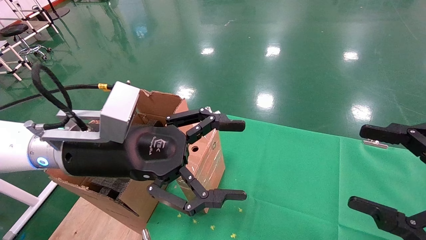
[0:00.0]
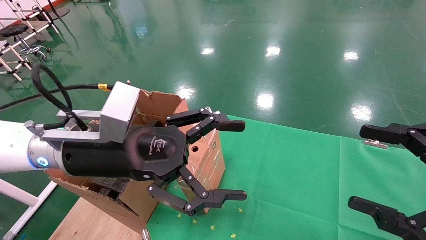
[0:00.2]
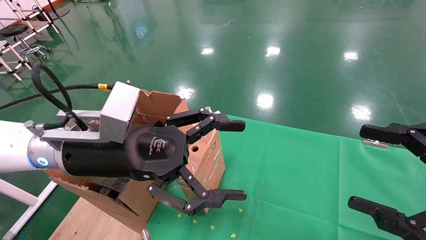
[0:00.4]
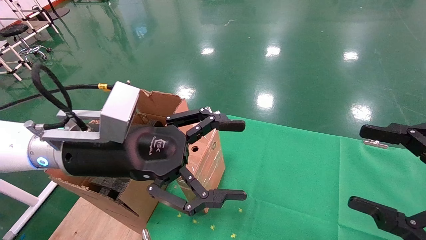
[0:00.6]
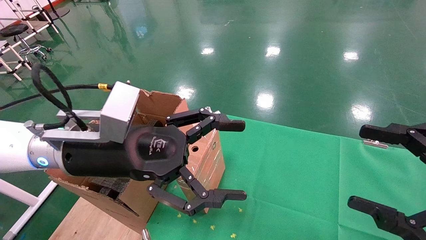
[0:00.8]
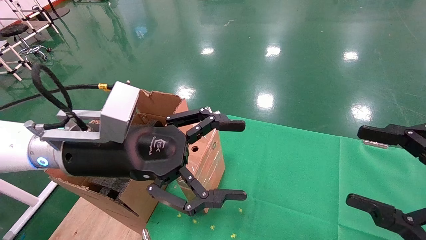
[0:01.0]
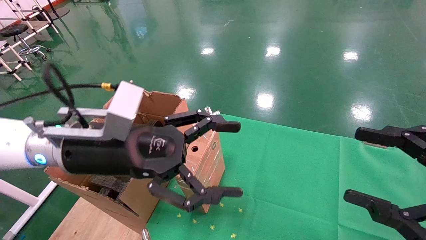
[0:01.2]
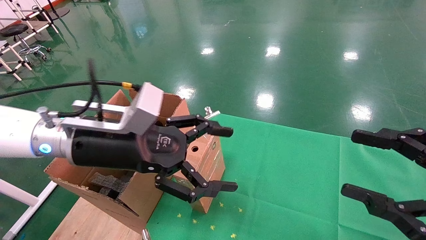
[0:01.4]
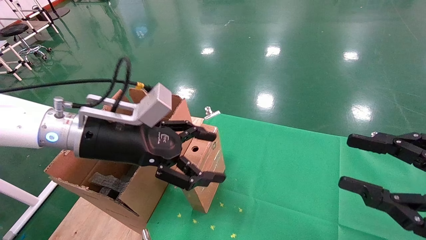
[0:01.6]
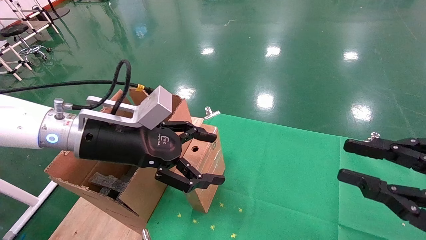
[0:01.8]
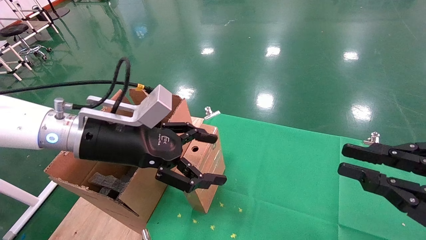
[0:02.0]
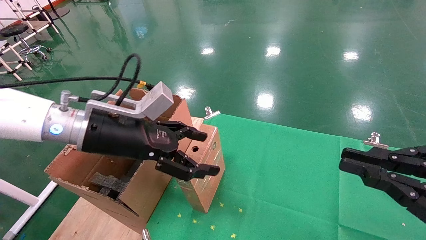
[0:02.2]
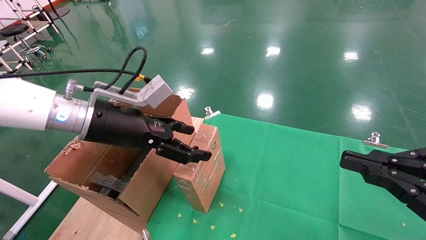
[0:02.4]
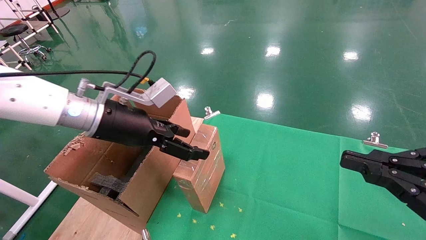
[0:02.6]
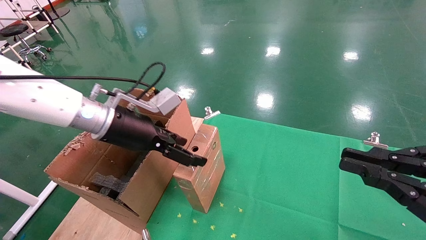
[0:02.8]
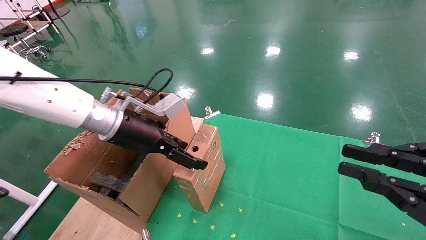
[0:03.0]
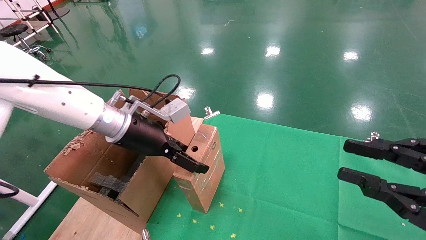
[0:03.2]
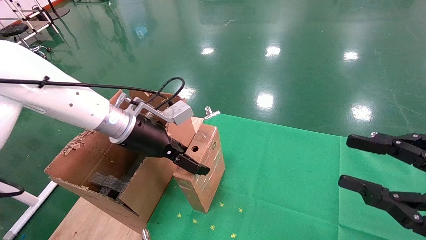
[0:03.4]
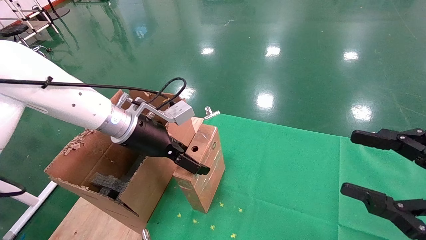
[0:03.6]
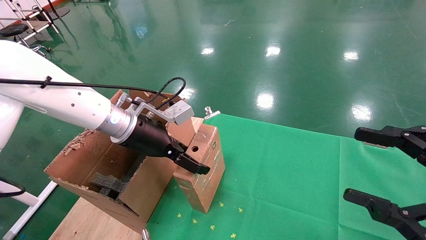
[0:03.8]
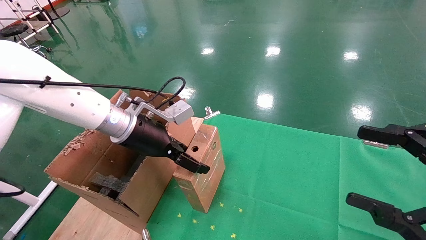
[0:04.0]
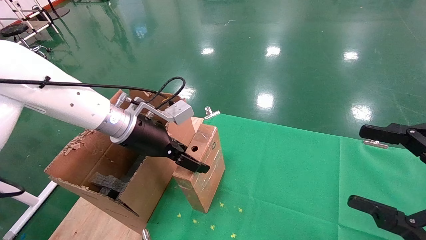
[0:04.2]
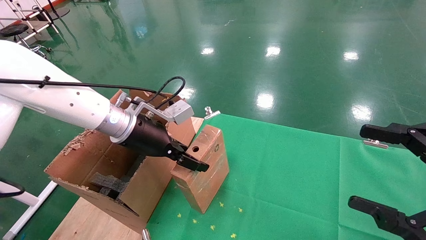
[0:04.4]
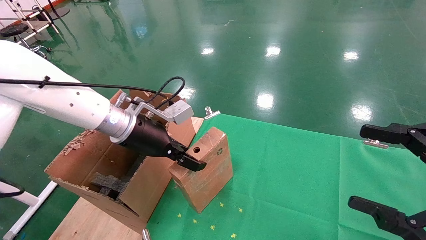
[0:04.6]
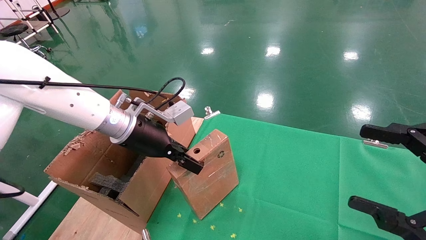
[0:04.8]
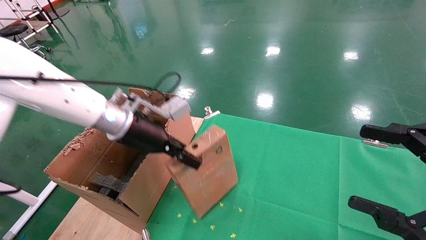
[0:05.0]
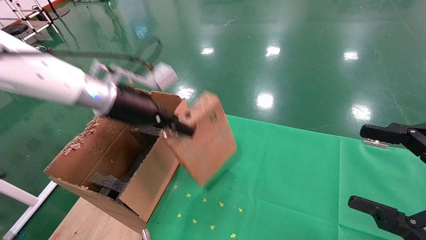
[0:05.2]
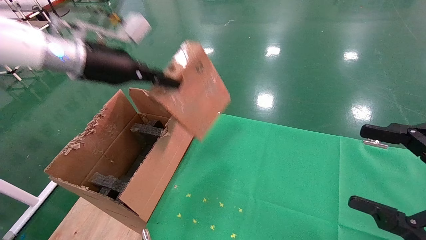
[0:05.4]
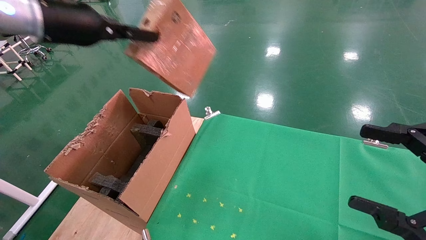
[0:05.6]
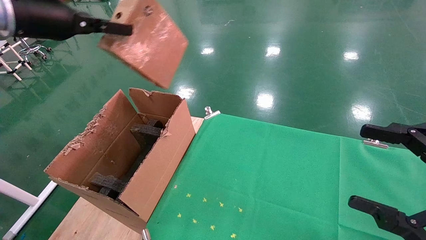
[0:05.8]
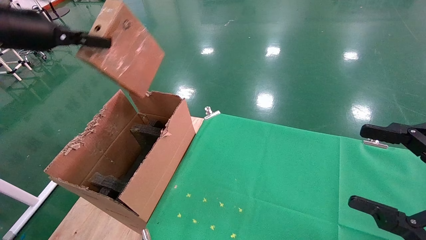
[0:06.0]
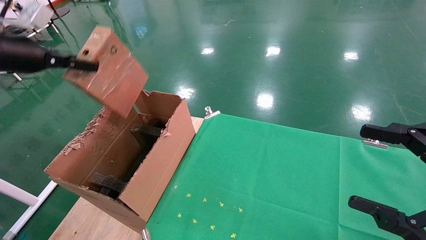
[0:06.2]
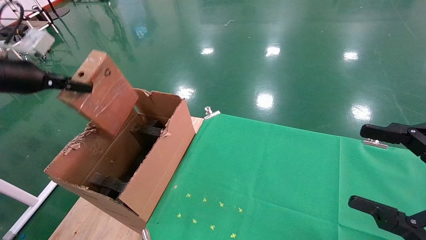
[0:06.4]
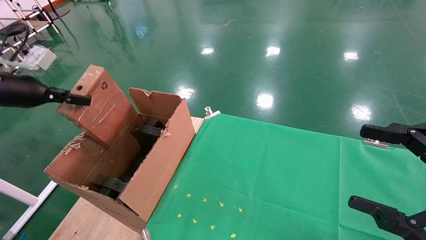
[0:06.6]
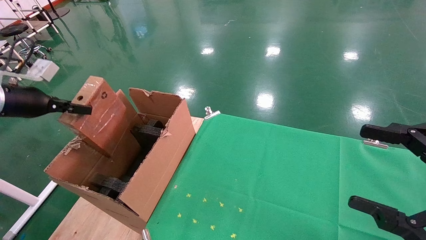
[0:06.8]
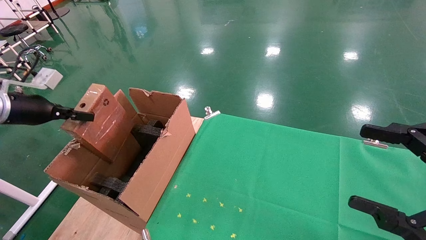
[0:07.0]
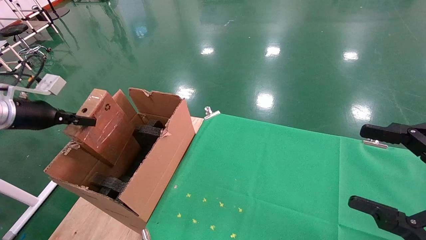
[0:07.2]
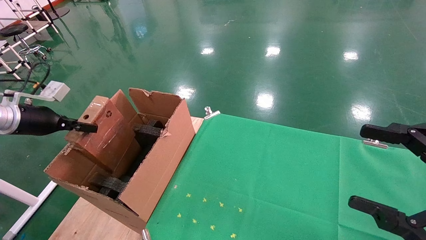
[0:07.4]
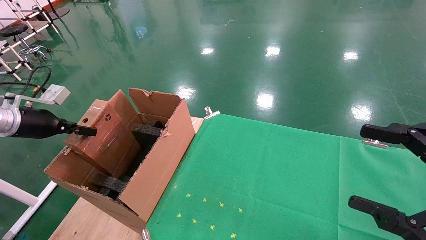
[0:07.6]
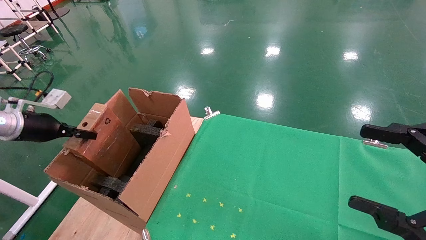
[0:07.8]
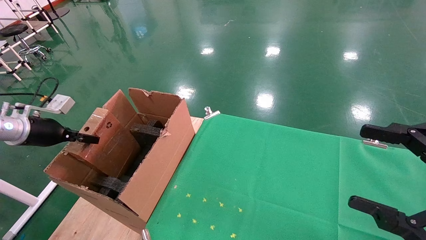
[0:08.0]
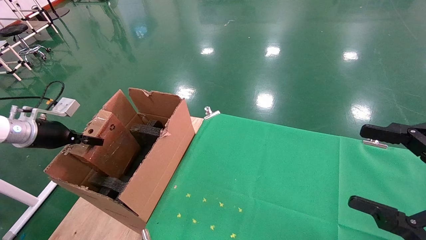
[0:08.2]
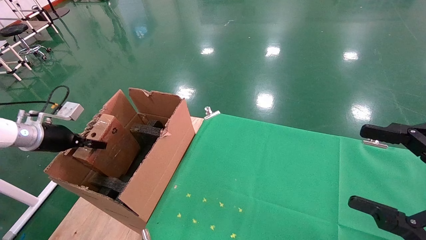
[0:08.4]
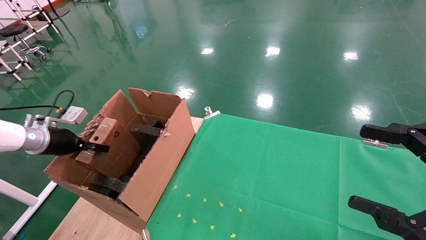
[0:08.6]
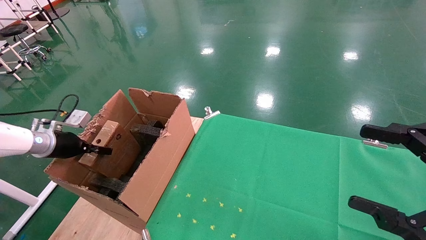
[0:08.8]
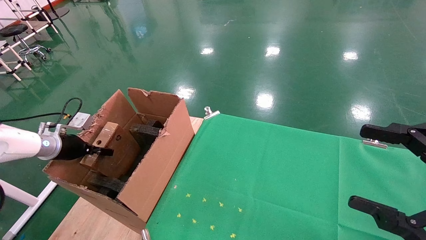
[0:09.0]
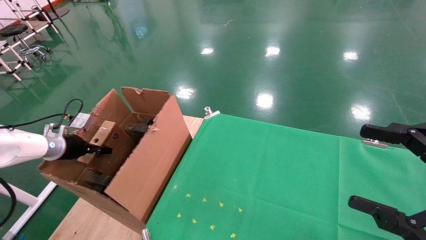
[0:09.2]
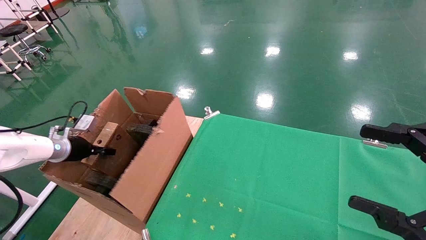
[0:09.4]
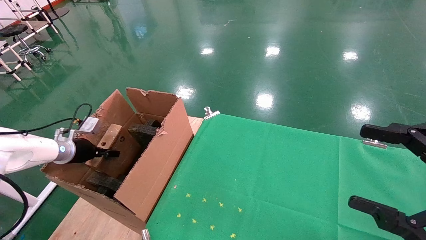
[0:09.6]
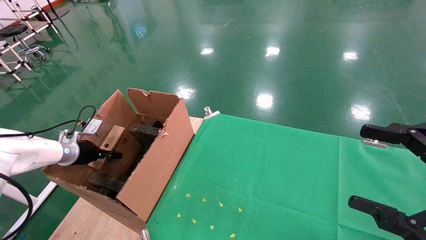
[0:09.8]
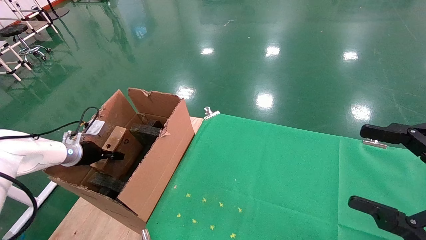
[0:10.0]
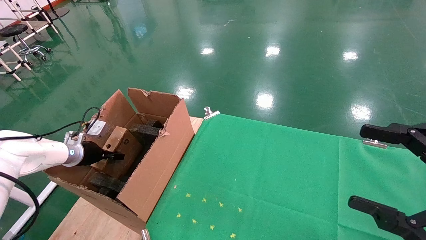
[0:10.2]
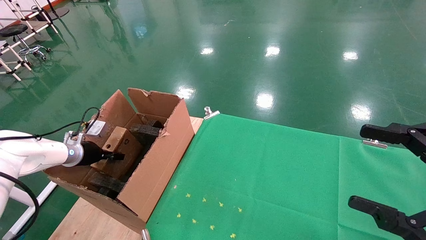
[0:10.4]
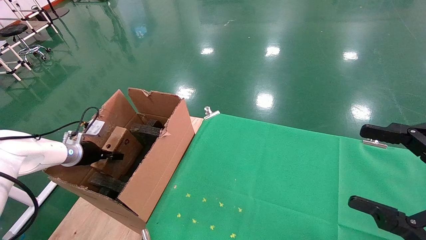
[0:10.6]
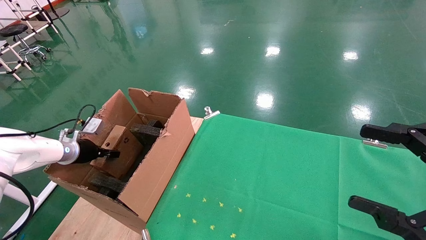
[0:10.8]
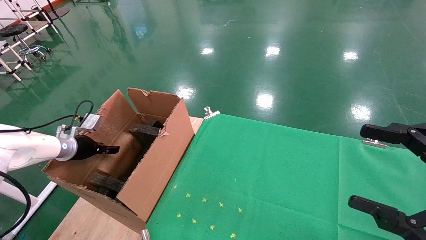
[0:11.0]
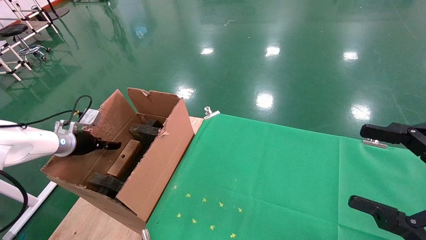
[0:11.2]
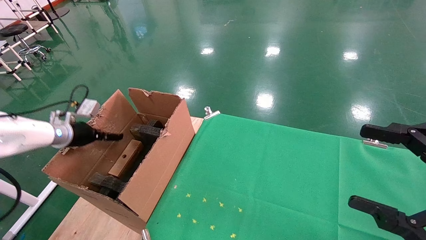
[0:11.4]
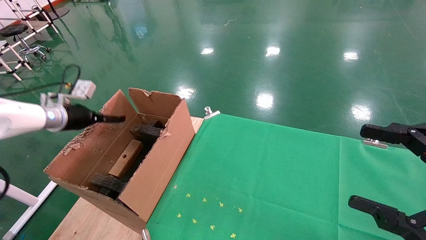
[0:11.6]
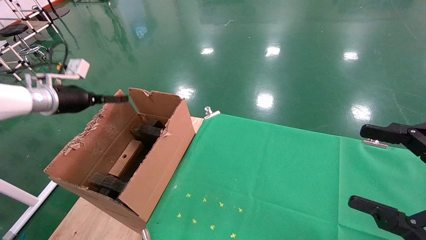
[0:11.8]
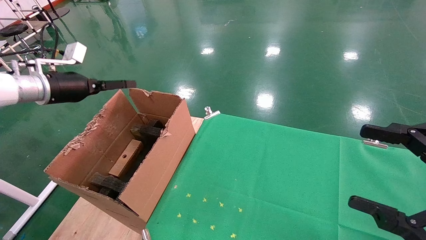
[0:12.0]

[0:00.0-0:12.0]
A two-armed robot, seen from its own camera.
Task of the whole recording: using a robotic arm to pick up a cardboard box and palace it the carton.
Step, 0:01.4 to 0:04.6: Pick up the mouse and the power cord paper box.
Step, 0:04.8 to 0:11.6: Place the mouse and the power cord paper box into the container.
0:00.0 to 0:01.6: The right gripper closes its fingers.
0:01.6 to 0:03.0: The left gripper goes roughly 10 cm forward. The right gripper closes.
0:03.0 to 0:04.4: The right gripper opens its fingers; the left gripper closes its fingers.
0:04.4 to 0:06.0: The left gripper heads to the left and upward, covering some 25 cm, and closes up.
0:06.0 to 0:07.6: The left gripper travels downward and to the left by approximately 20 cm.
0:07.6 to 0:09.0: The left gripper goes approximately 10 cm downward and forward.
0:09.0 to 0:10.4: The left gripper ends up about 5 cm from where it was.
0:10.4 to 0:12.0: The left gripper moves upward, roughly 20 cm, and opens its fingers.

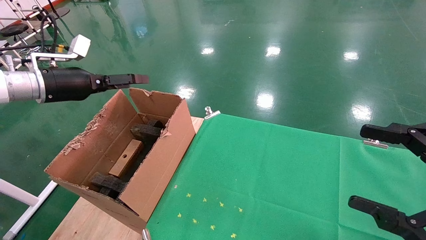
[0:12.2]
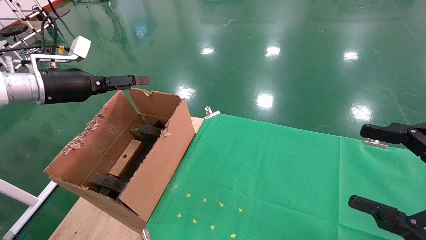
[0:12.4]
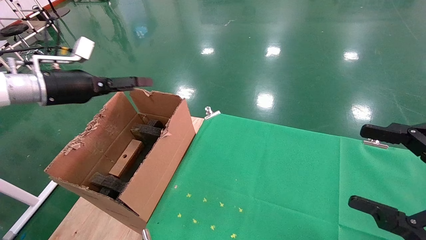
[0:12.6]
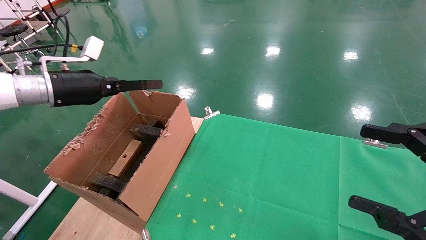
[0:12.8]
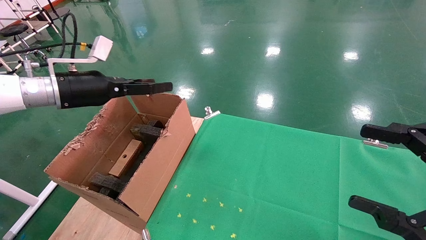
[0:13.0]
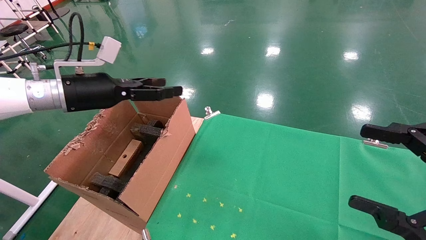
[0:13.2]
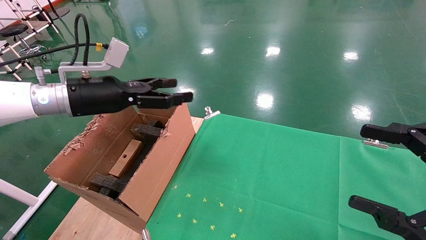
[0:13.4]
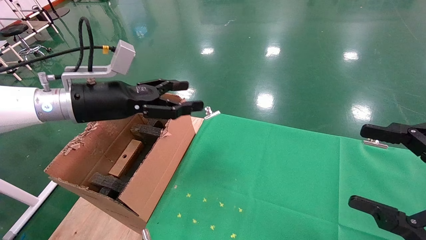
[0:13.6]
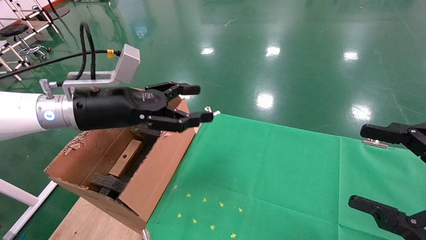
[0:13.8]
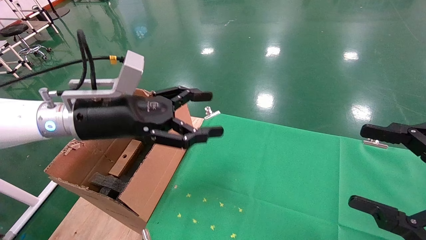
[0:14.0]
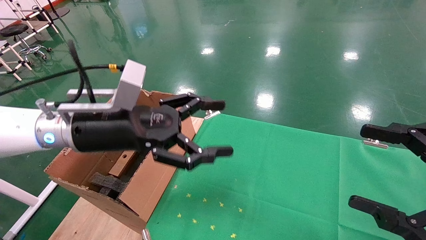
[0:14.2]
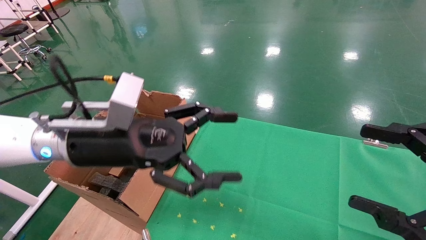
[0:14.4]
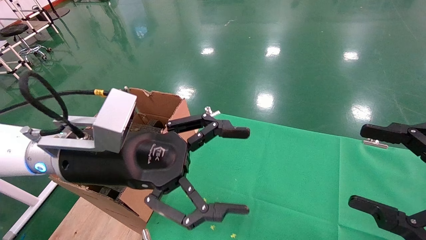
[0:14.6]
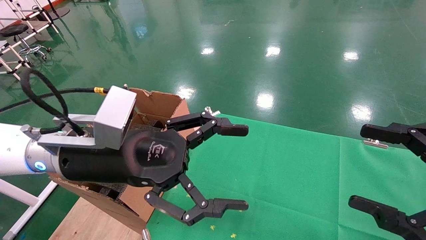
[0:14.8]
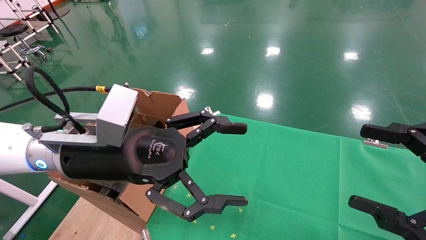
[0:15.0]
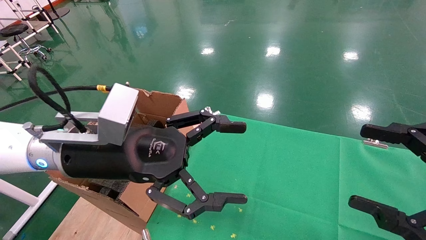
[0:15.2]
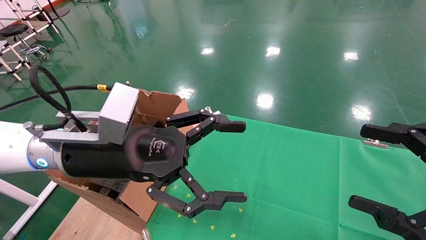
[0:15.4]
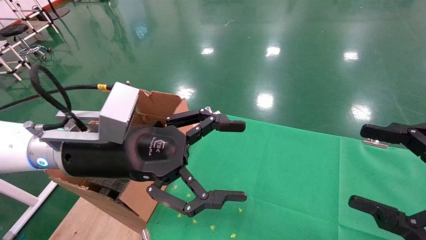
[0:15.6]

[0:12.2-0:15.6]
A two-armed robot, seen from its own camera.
Task of the whole recording: using a robotic arm to pick up a cardboard box and palace it the carton.
0:12.2 to 0:13.8: The left gripper heads to the right, covering some 15 cm.
0:13.8 to 0:15.6: The left gripper heads backward and to the right, covering some 10 cm.

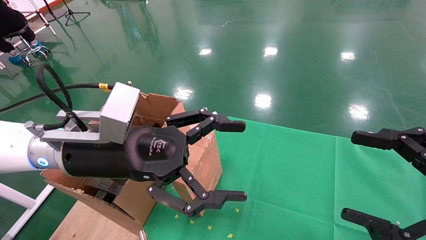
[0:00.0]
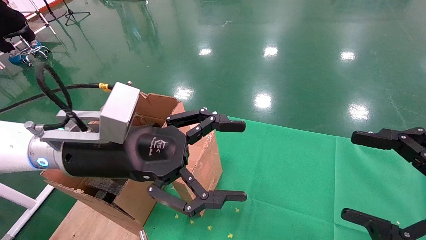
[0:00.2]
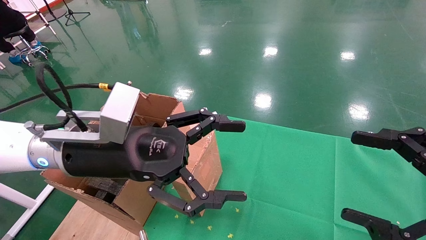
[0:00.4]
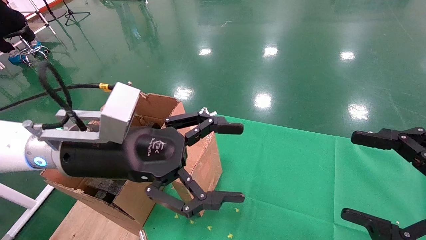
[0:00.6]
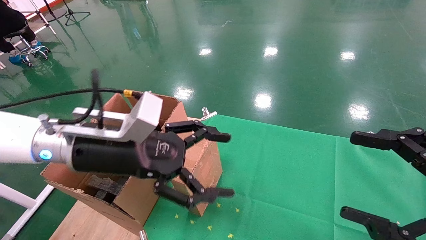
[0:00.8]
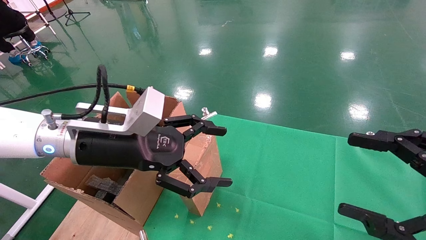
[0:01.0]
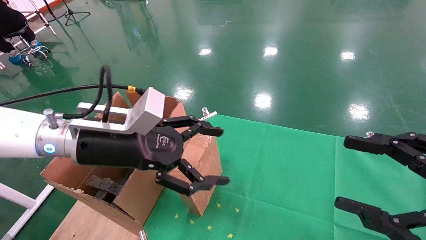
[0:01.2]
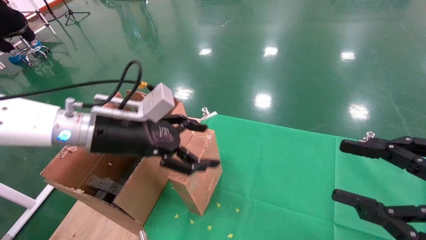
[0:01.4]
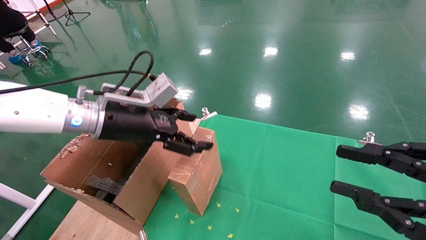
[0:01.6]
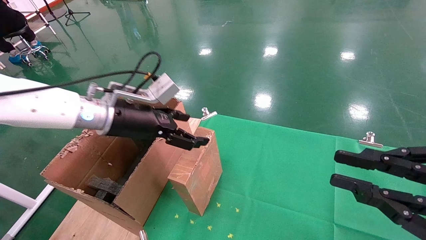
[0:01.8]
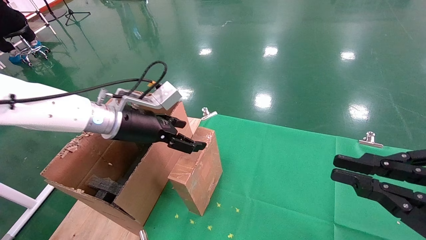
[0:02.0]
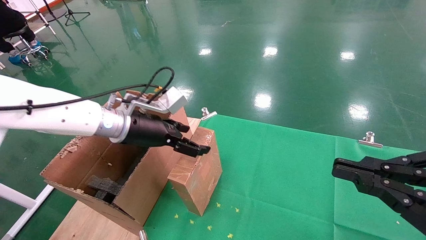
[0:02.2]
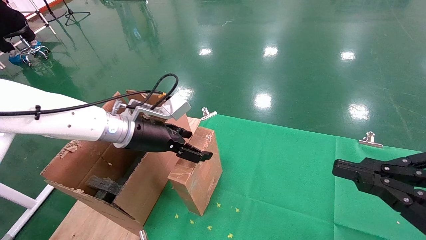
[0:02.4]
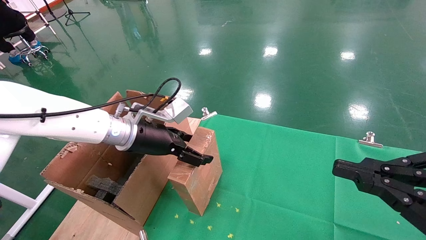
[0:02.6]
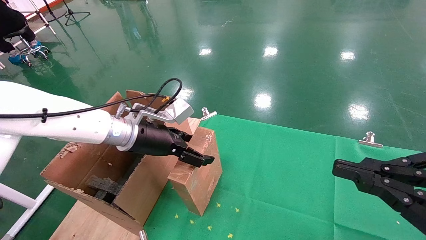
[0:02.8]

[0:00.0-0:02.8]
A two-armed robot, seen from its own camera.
Task of the whole recording: using a robotic arm to pick up a cardboard box and palace it the carton.
0:00.0 to 0:01.4: The left gripper travels forward by approximately 5 cm.
0:01.4 to 0:02.8: The left gripper goes about 5 cm forward; the right gripper closes up.
